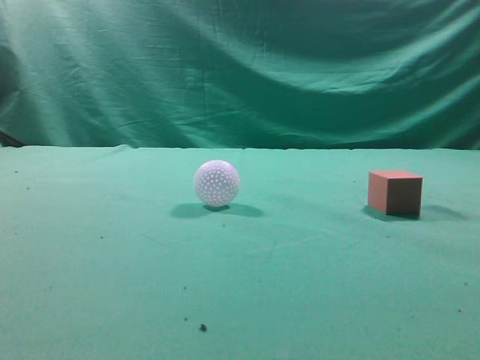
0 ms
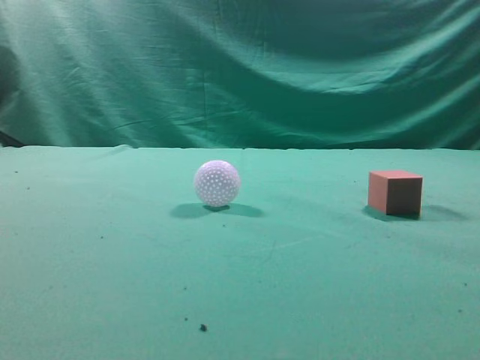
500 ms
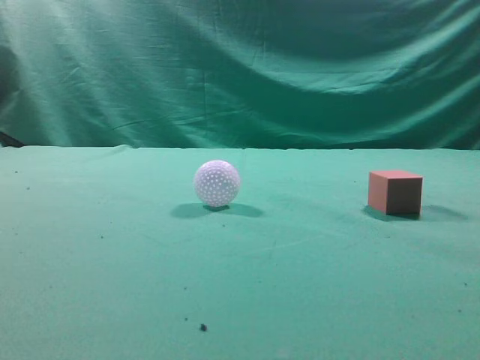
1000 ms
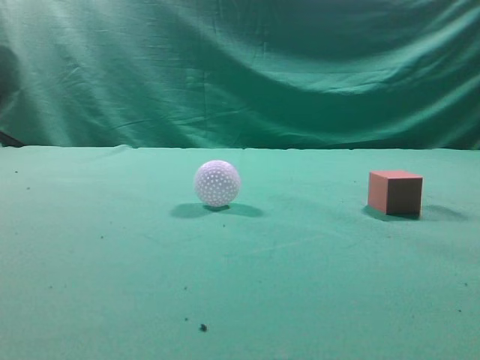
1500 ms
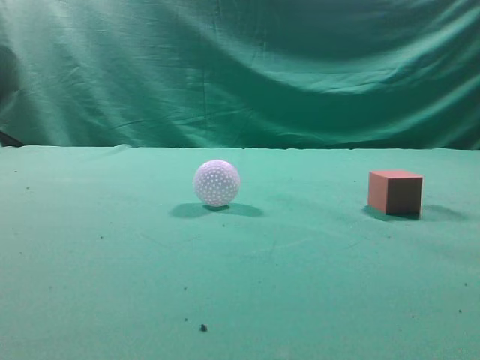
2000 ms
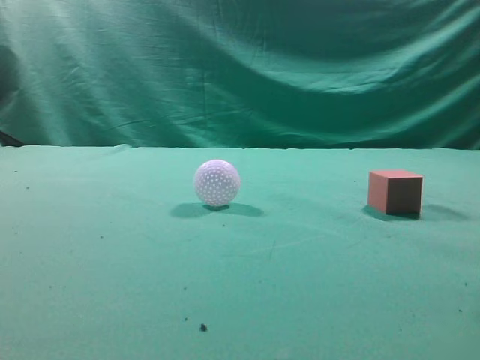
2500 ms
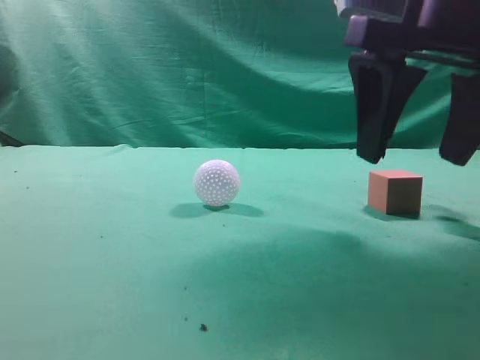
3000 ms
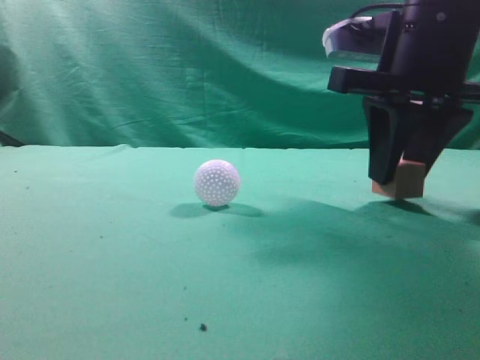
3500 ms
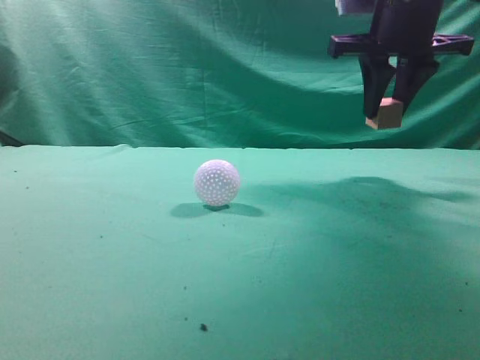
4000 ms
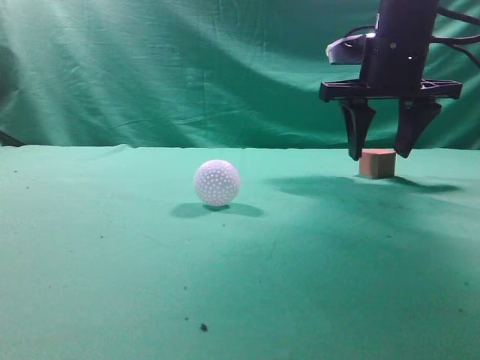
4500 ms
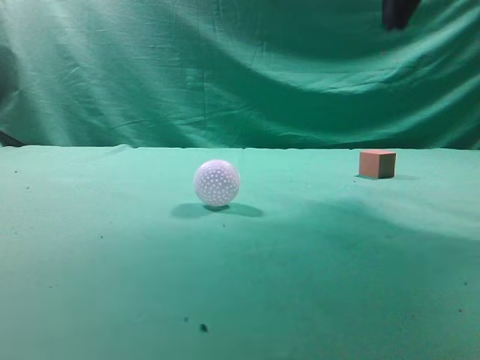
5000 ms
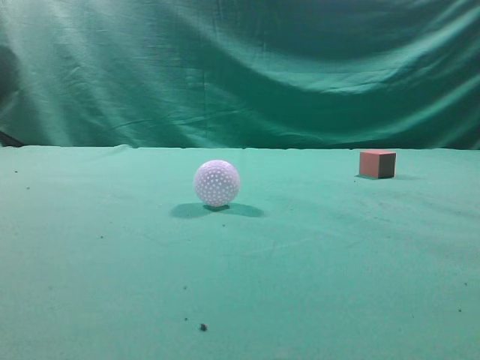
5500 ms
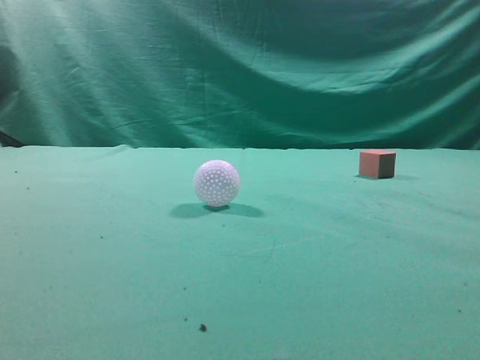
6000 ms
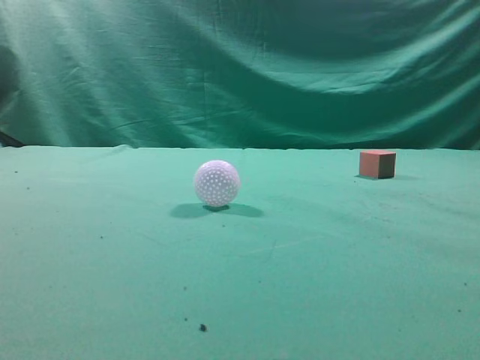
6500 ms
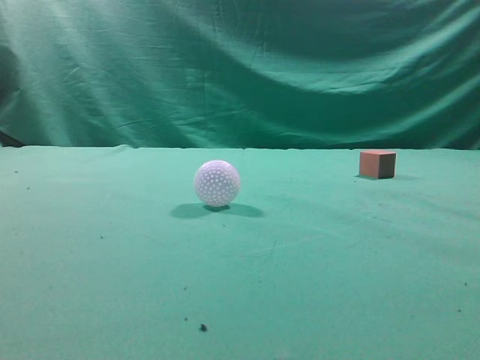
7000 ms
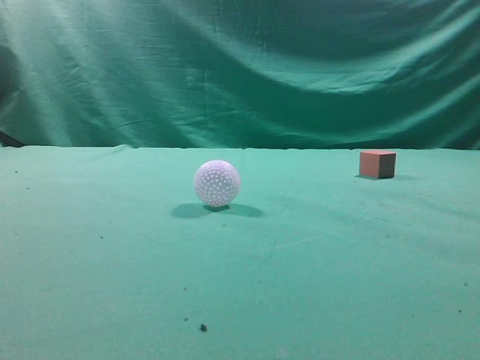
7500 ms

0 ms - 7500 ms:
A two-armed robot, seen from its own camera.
Task of the whole recording: pick up the cube block and place it in another position on the table.
Step, 0 ms - 3500 ms: Pick up the small cube.
Step, 4000 ms - 4500 ms: Place the small cube on the ahead of the table.
2000 ms - 4000 ms: The right gripper is displaced forward by roughly 30 cm, and opens up.
4000 ms - 5500 ms: The right gripper goes some 25 cm backward and upward, and closes up.
